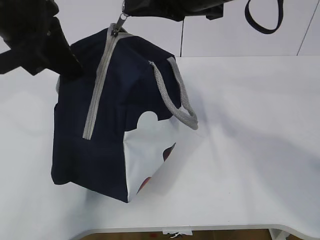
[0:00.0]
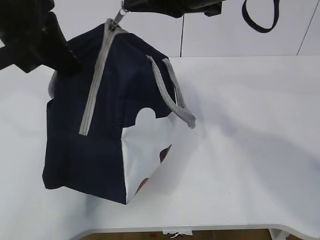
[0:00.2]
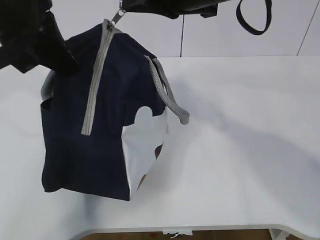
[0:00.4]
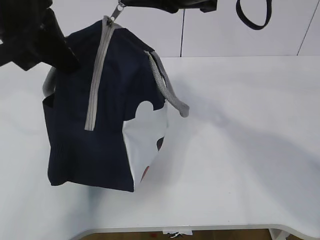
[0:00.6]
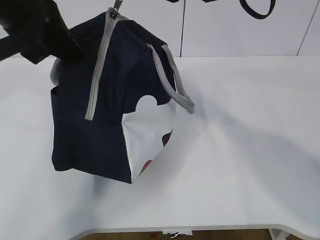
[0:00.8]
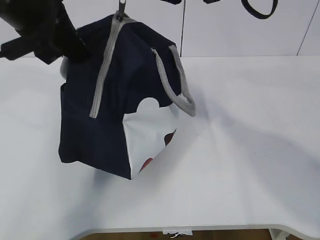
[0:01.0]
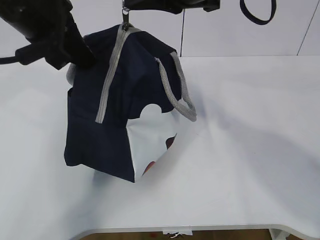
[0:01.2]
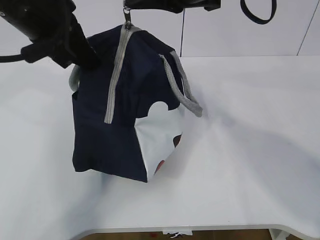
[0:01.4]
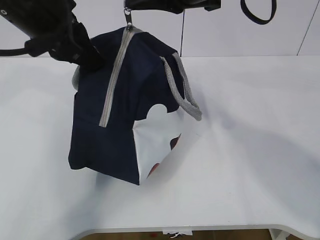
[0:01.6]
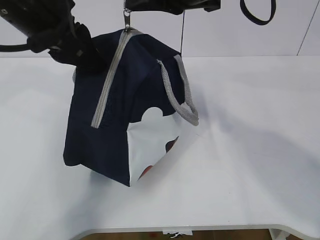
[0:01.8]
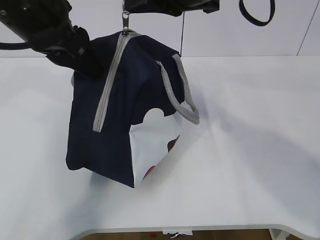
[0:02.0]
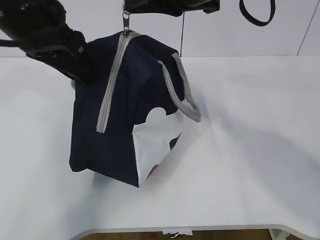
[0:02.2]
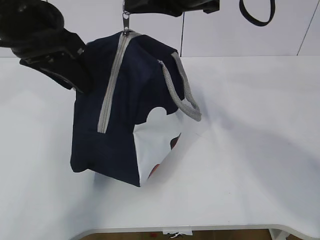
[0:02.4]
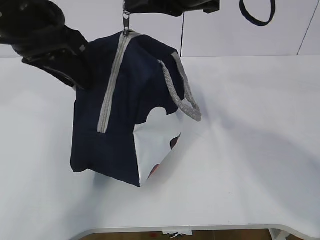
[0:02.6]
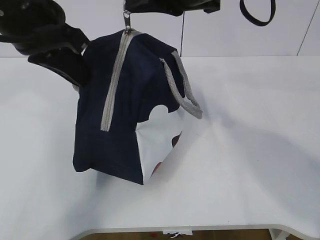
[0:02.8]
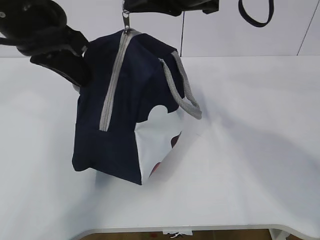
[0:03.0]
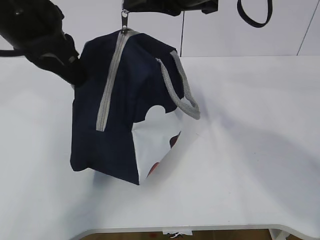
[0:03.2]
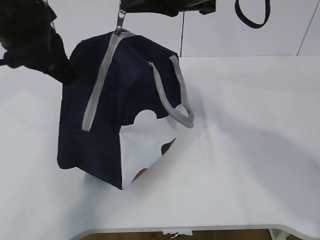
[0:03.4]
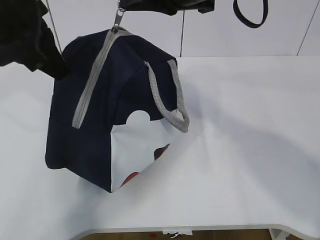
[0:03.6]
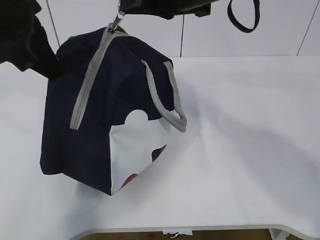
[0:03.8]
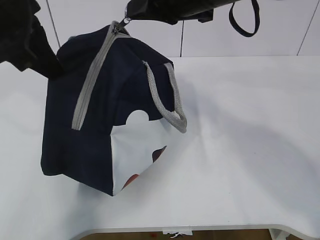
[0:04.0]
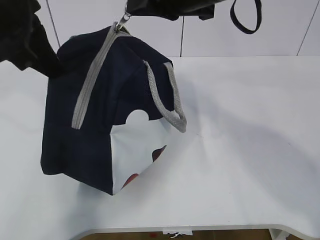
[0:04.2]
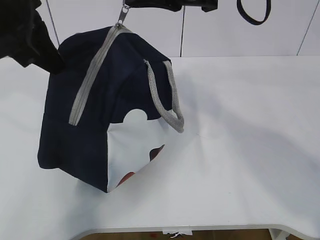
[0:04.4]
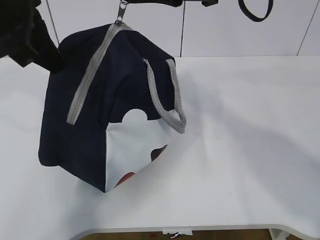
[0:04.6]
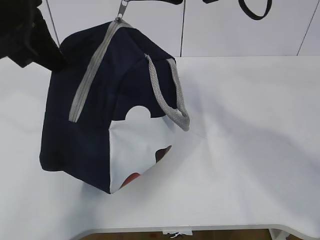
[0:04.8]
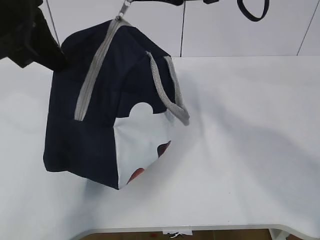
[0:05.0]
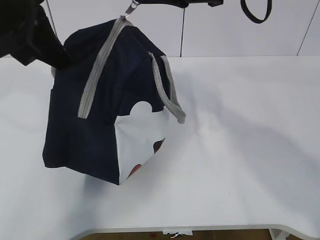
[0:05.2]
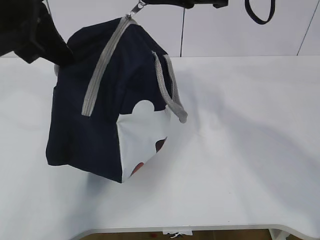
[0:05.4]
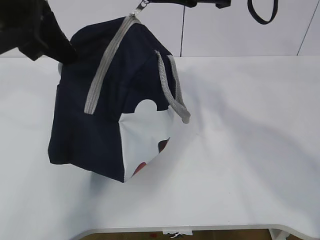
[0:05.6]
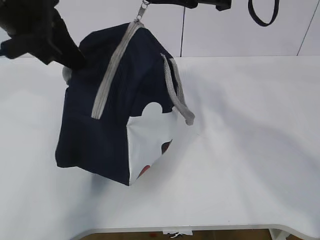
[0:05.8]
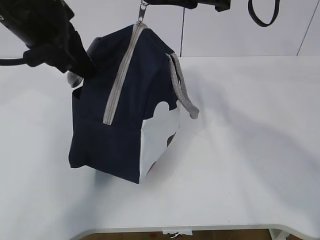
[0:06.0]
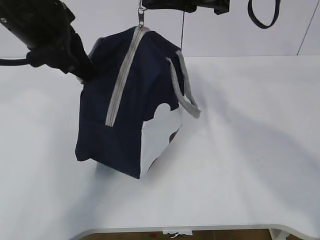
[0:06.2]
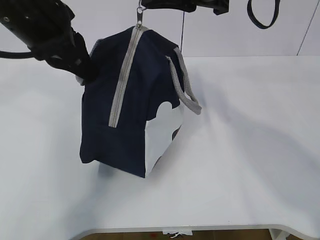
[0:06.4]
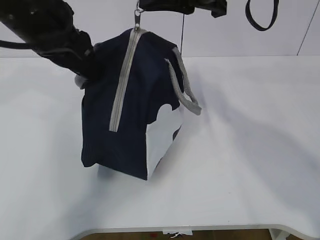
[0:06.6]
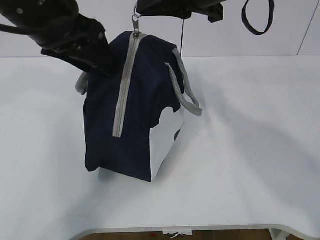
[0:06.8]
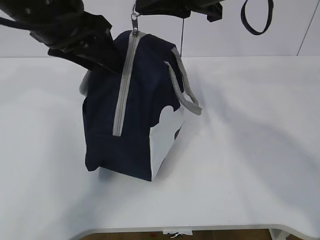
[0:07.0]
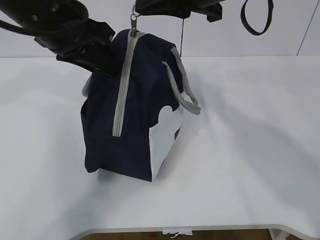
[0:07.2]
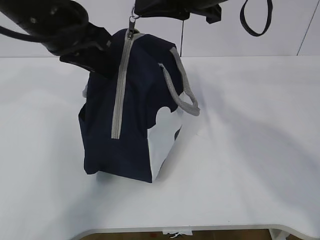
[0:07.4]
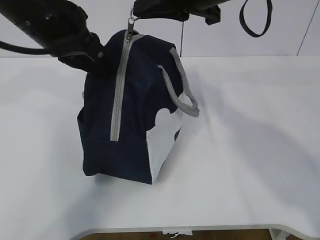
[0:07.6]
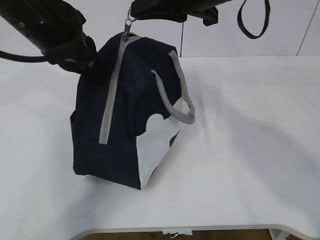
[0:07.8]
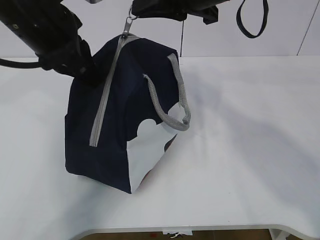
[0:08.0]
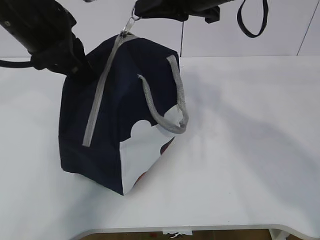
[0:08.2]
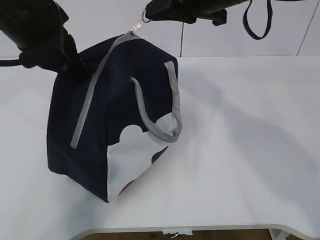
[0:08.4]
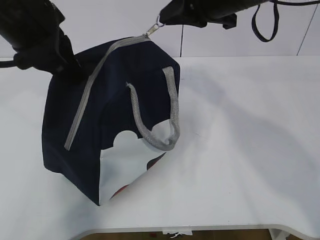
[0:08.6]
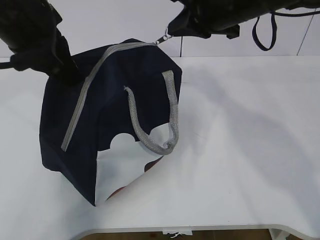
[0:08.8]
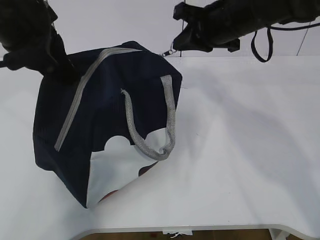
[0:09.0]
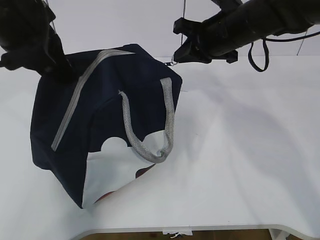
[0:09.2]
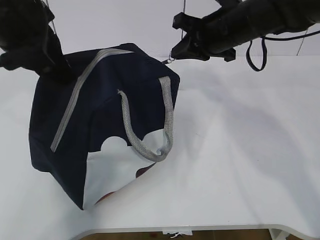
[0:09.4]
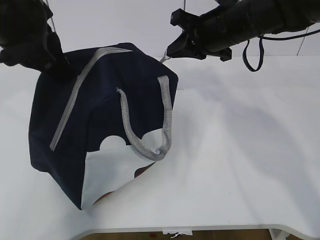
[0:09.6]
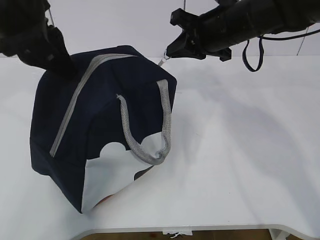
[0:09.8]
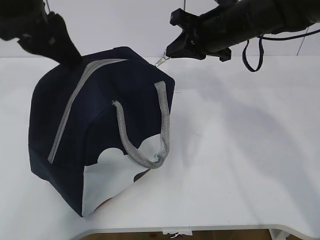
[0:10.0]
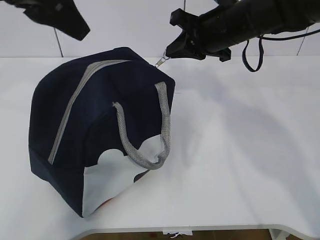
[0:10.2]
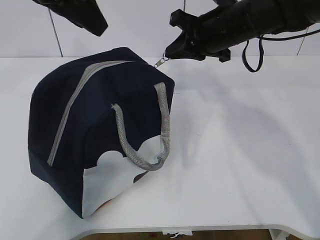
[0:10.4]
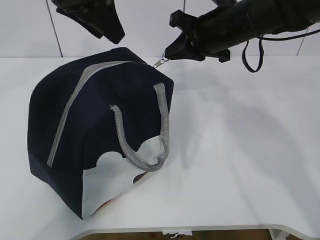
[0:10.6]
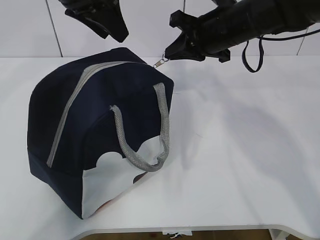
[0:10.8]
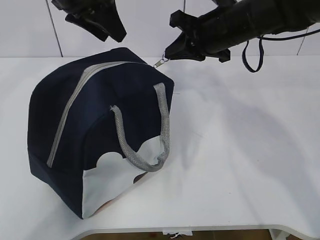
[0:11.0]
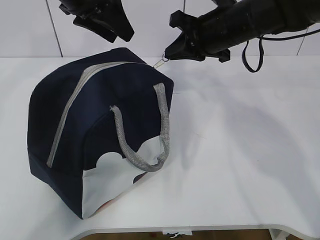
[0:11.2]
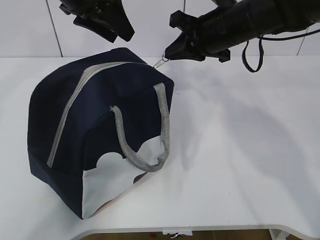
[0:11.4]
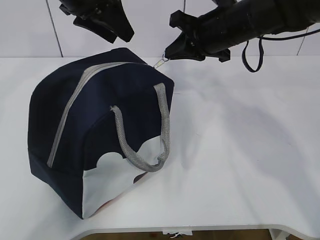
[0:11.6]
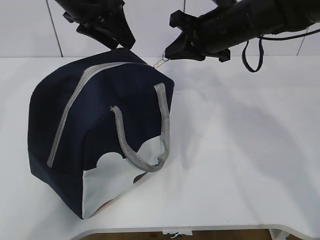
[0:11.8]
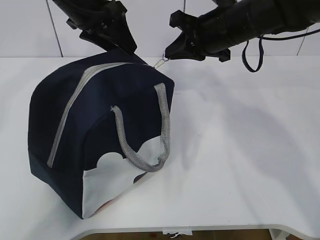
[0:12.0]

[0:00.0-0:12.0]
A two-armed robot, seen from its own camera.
Step, 0:00.0 to 0:03.8: Pull the zipper with your right hand.
0:00.0 to 0:01.6: There are only small adjustments of the grippers.
0:01.6 to 0:03.0: The left gripper opens and closes again.
0:06.0 to 0:07.6: The left gripper opens, then closes again.
0:07.6 to 0:09.0: The right gripper heads downward and forward, covering approximately 10 cm.
0:09.0 to 0:10.4: The left gripper ends up some 5 cm from where it was, and opens its fingers.
0:10.4 to 0:12.0: The left gripper goes roughly 10 cm forward and downward.

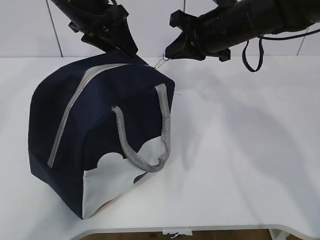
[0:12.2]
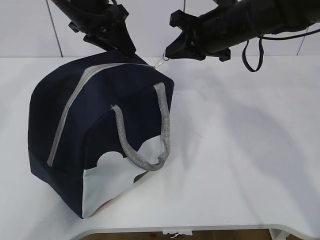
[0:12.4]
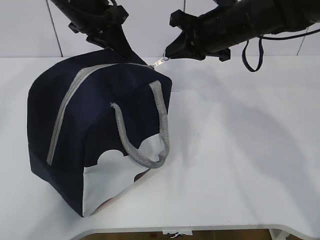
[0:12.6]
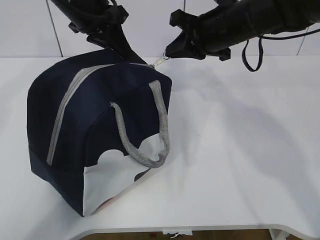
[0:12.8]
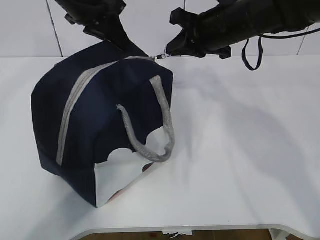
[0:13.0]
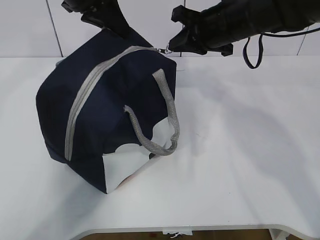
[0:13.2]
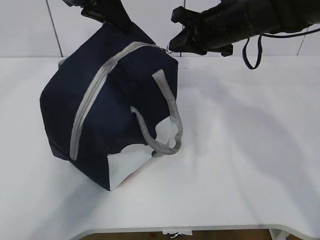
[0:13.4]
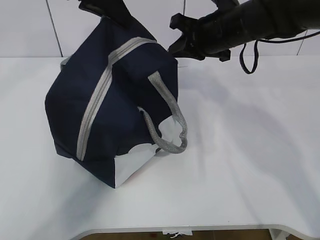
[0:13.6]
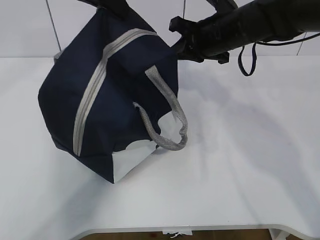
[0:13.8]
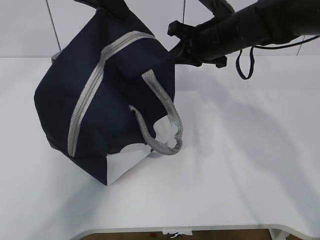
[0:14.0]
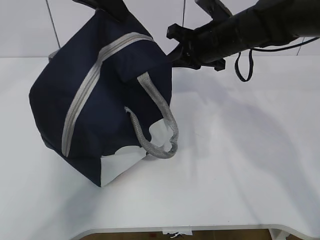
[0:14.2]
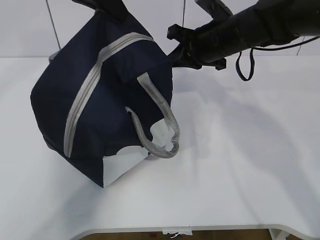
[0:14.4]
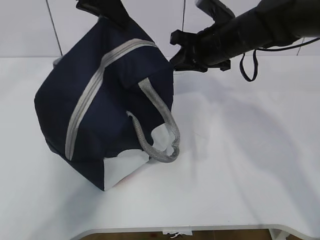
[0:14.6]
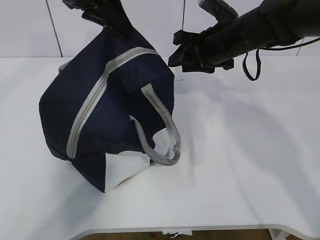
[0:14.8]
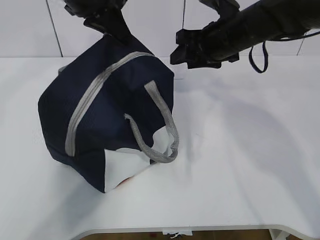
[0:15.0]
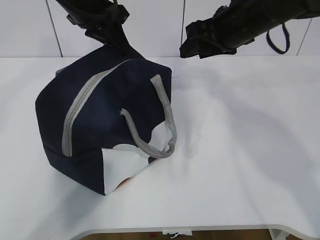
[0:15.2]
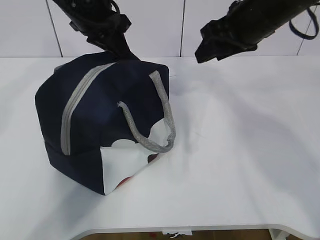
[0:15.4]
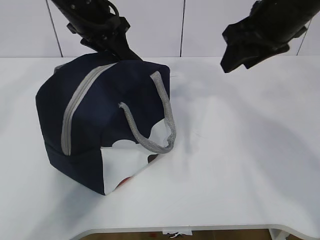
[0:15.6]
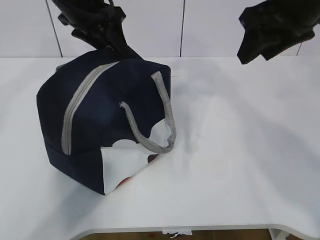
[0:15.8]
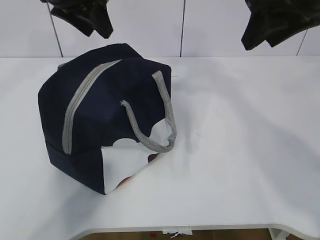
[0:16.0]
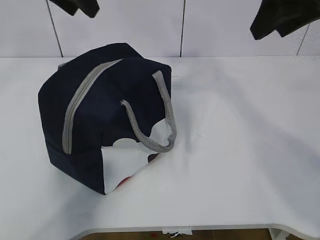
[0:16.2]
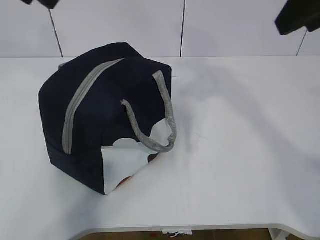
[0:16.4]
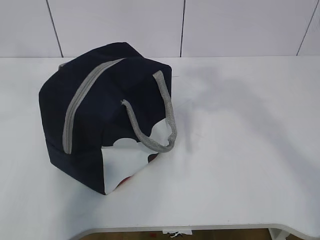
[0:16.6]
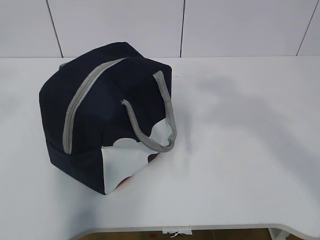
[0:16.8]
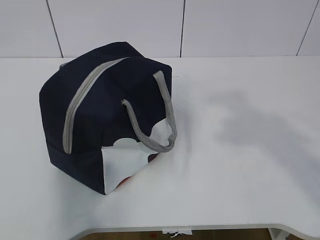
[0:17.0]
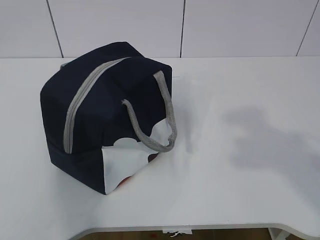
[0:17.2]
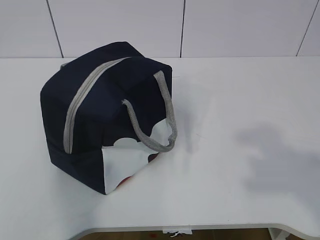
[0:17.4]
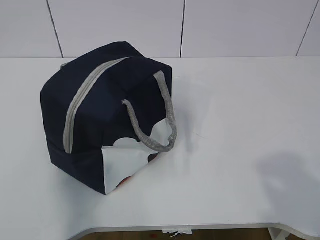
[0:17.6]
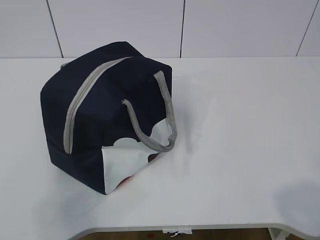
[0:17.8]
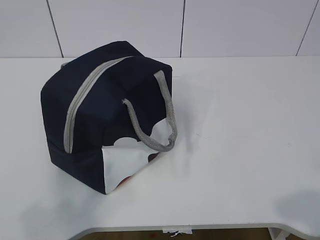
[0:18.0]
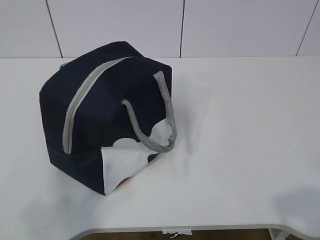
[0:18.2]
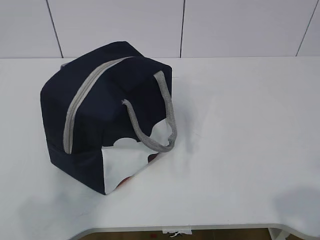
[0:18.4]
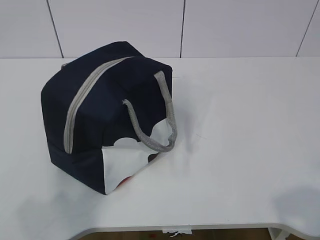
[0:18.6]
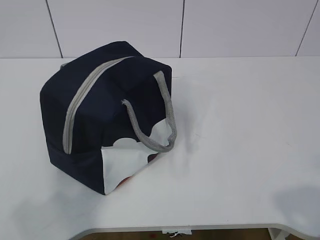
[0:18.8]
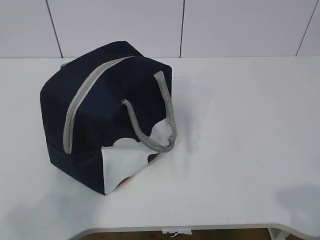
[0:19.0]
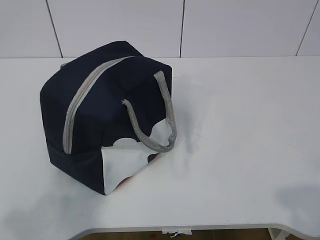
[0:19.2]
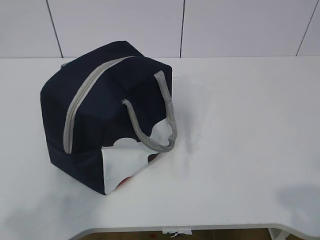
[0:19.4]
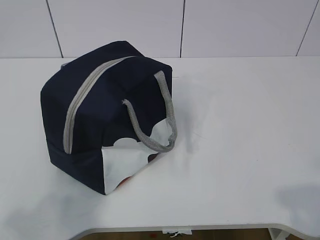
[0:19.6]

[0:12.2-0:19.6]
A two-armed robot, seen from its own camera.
0:12.2 to 0:13.6: The left gripper moves upward, about 5 cm, and closes its fingers.
0:13.6 to 0:15.2: The right gripper opens, while the left gripper travels downward by approximately 5 cm.
0:15.2 to 0:16.6: The right gripper moves backward and upward, some 25 cm; the left gripper goes approximately 20 cm backward, upward and to the left, and opens its fingers.
0:16.6 to 0:18.2: The grippers both shift backward and downward by about 30 cm.
